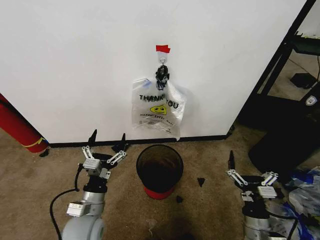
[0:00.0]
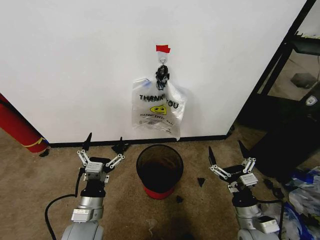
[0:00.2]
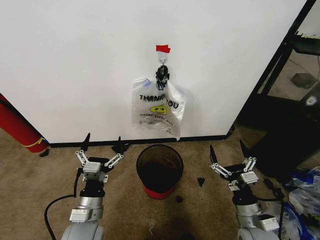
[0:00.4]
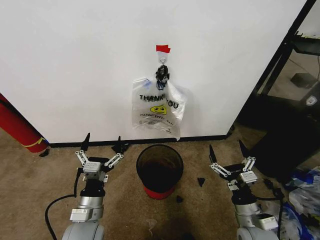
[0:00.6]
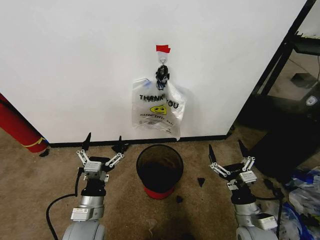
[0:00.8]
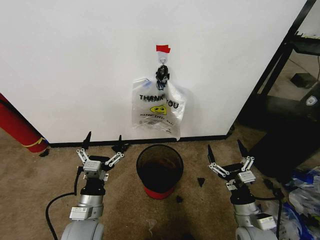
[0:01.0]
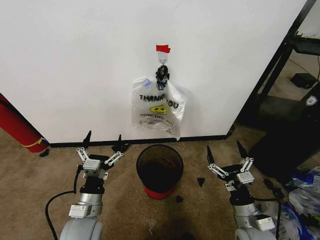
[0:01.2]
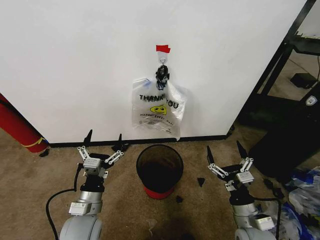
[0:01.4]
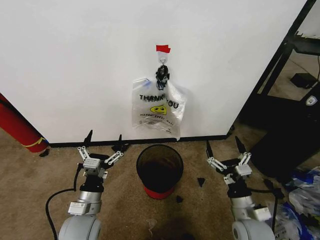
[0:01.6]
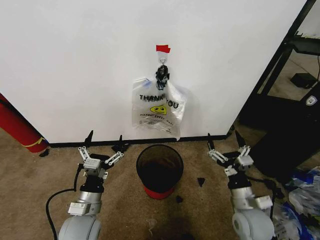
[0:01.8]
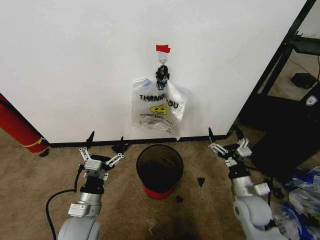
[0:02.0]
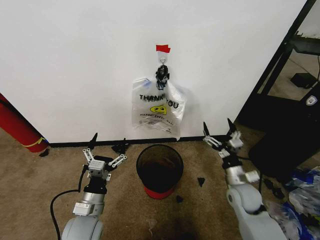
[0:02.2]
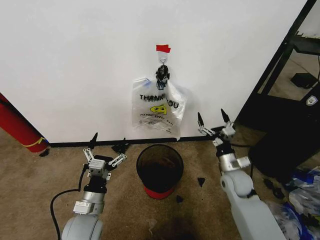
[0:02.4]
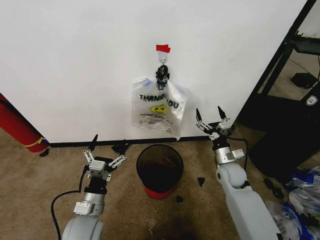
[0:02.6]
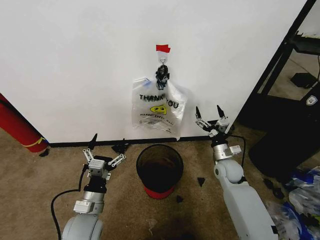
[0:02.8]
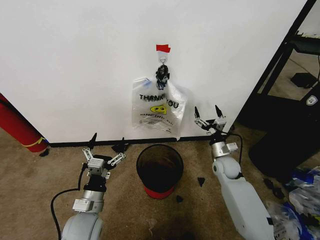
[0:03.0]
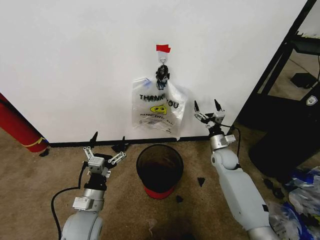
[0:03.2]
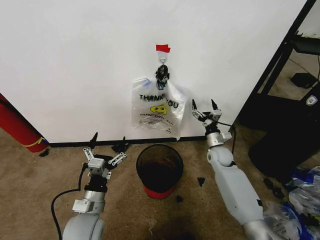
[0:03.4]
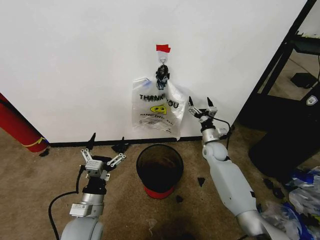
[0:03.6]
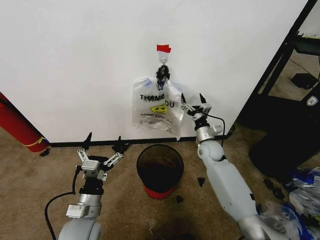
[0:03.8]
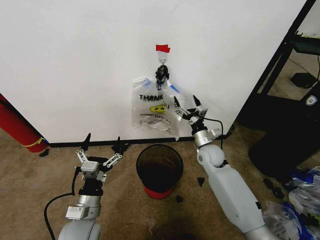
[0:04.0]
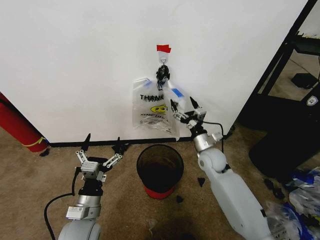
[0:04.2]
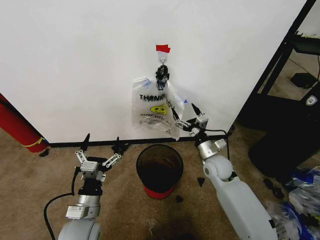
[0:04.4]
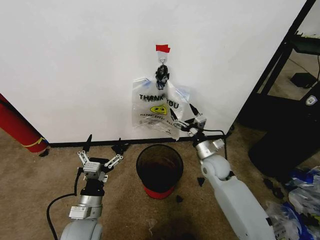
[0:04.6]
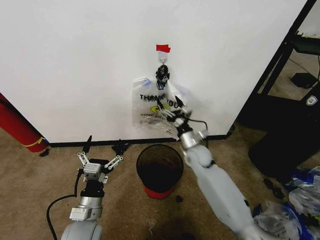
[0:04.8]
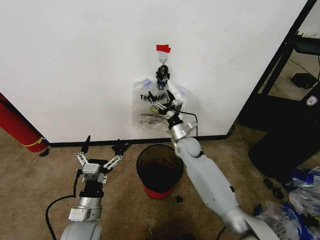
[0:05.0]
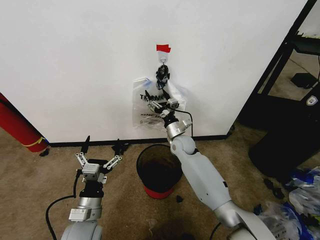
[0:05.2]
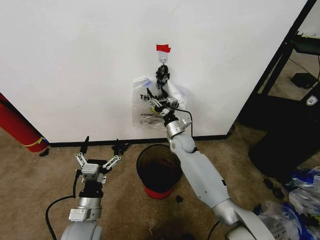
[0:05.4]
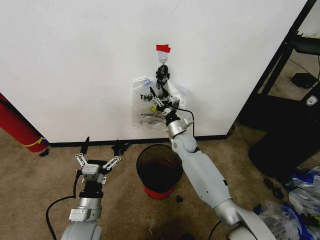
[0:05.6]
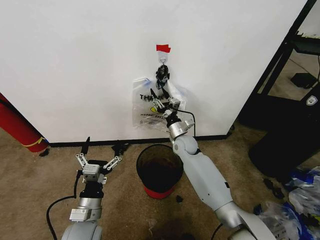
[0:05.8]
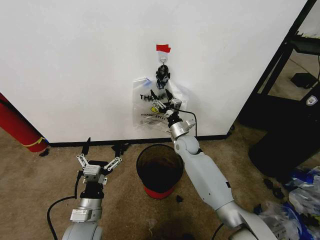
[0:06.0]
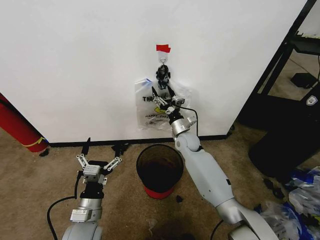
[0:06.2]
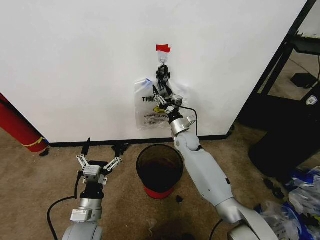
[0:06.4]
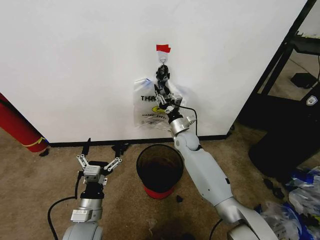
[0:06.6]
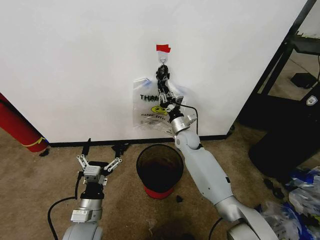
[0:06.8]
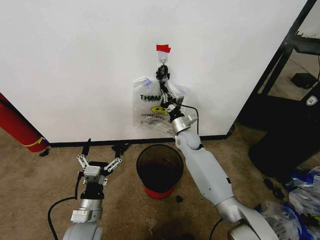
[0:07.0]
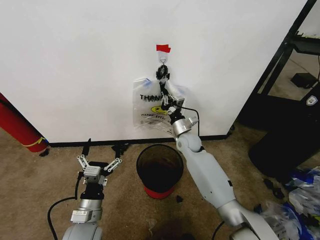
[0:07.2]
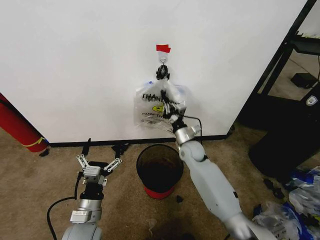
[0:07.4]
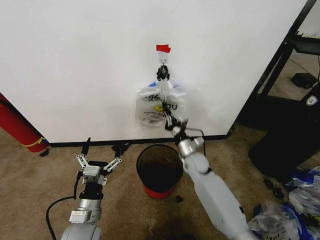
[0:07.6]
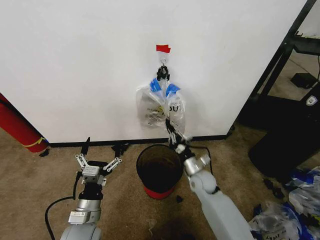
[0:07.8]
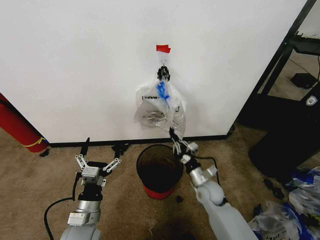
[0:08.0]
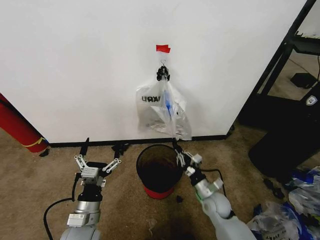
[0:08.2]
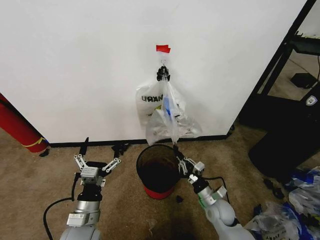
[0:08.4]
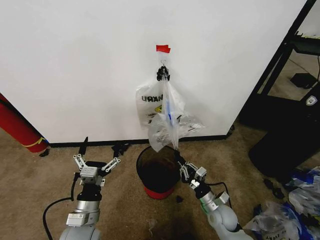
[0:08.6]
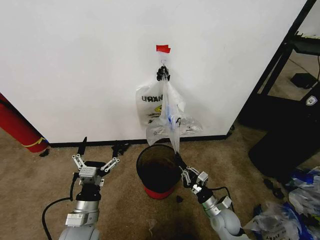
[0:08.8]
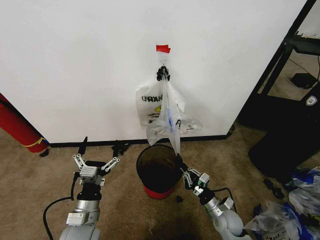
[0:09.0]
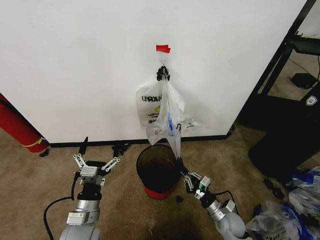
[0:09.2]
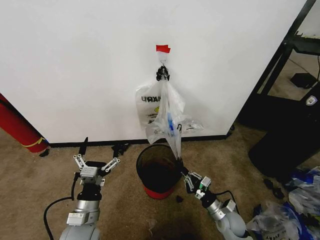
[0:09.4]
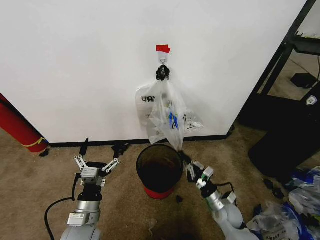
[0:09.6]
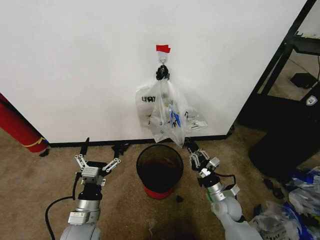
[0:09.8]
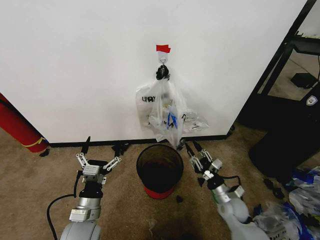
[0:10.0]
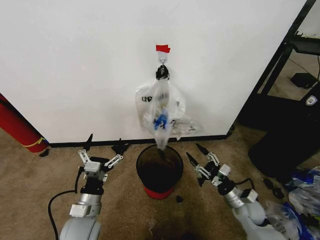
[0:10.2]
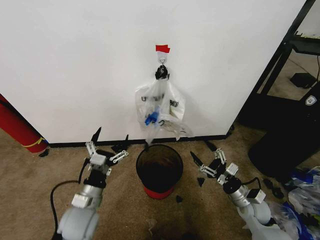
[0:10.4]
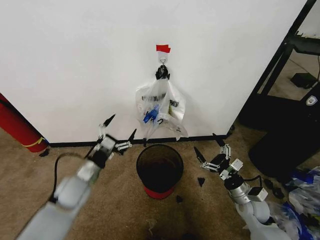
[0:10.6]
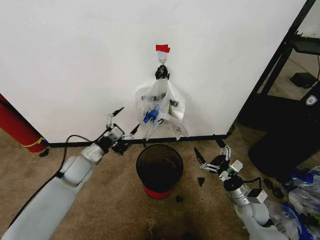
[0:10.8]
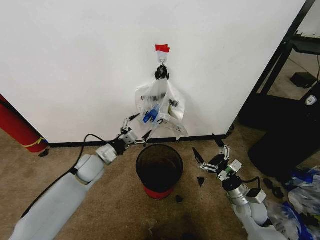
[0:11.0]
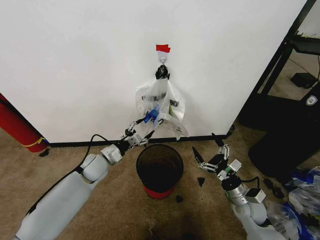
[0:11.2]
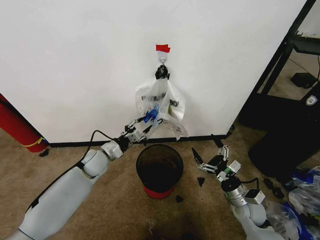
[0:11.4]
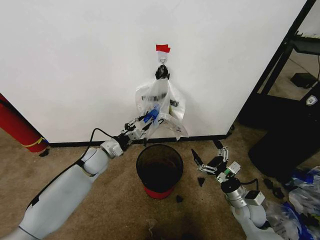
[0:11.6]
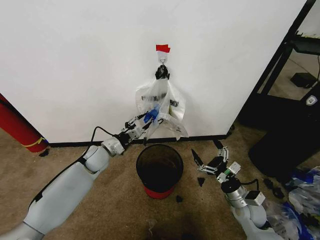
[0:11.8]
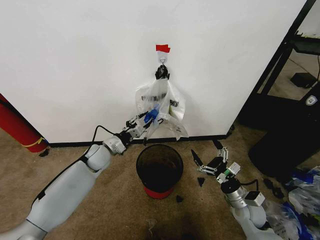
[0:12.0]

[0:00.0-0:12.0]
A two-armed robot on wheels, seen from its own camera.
Task of the whole recording: Pick up the garbage bag from the wall and place it over the trash bin.
0:01.6 to 0:03.0: The right gripper is displaced forward by approximately 25 cm.
0:03.0 to 0:04.4: The right gripper is displaced to the left by approximately 5 cm, and reaches roughly 5 cm forward, then returns.
0:04.4 to 0:06.0: The right gripper goes approximately 15 cm forward and to the left.
0:06.0 to 0:07.6: The right gripper travels backward by approximately 5 cm, and closes its fingers.
0:07.6 to 0:09.0: The right gripper shifts some 25 cm backward, downward and to the right.
0:09.0 to 0:10.4: The left gripper shifts by roughly 5 cm, while the right gripper moves upward and to the right, about 10 cm, and opens its fingers.
0:10.4 to 0:12.0: The left gripper heads forward, covering about 20 cm, and closes its fingers.

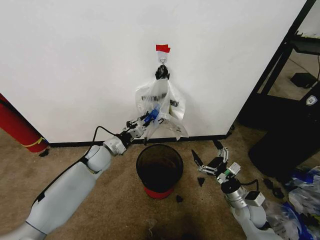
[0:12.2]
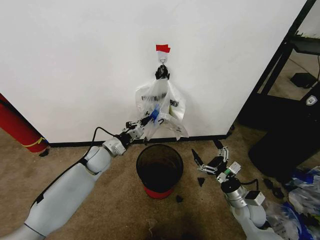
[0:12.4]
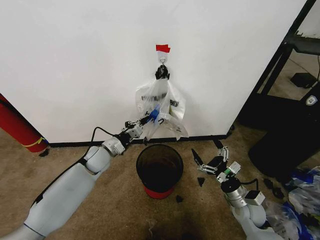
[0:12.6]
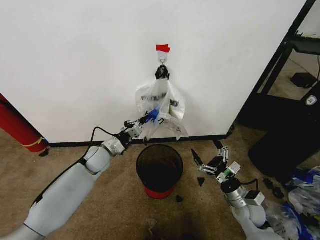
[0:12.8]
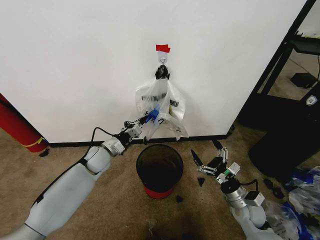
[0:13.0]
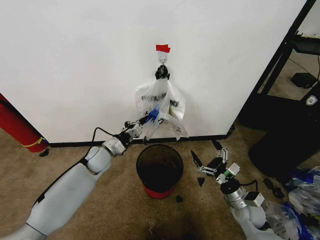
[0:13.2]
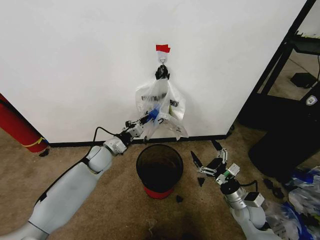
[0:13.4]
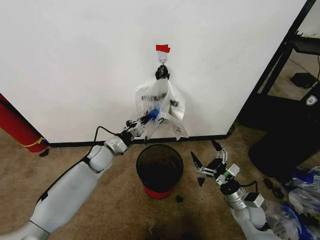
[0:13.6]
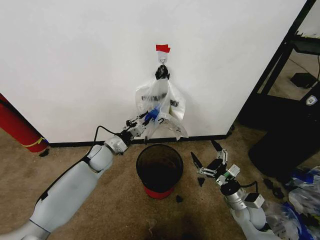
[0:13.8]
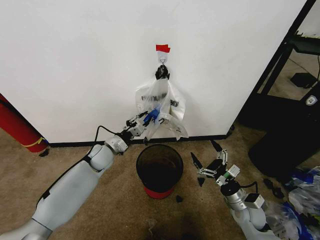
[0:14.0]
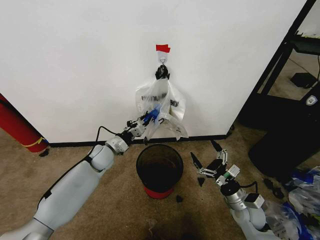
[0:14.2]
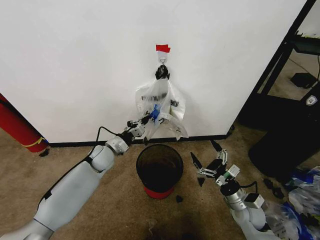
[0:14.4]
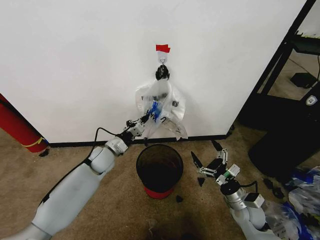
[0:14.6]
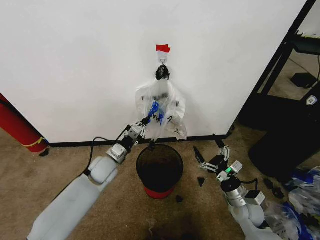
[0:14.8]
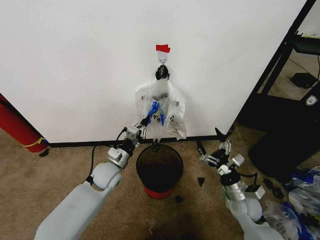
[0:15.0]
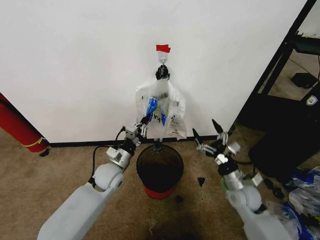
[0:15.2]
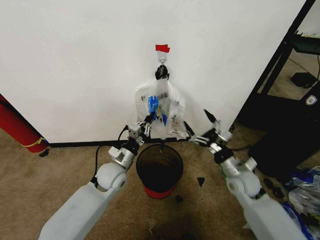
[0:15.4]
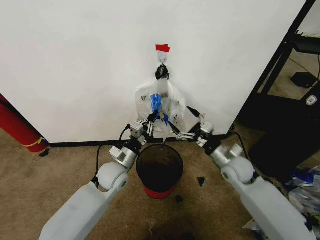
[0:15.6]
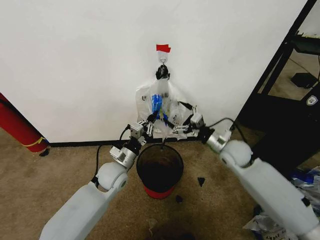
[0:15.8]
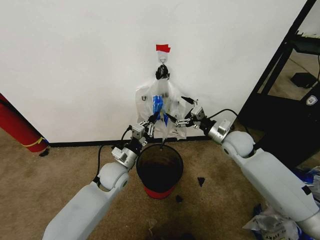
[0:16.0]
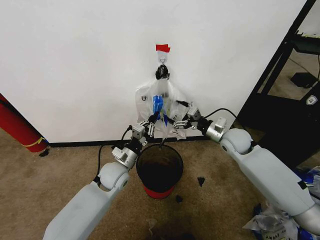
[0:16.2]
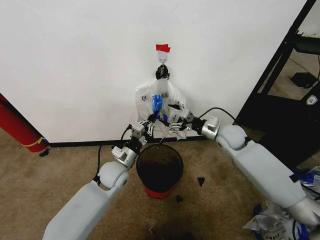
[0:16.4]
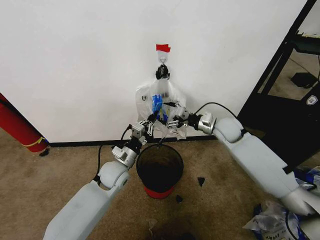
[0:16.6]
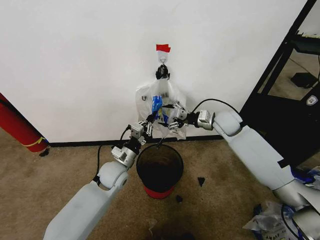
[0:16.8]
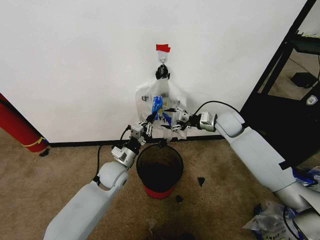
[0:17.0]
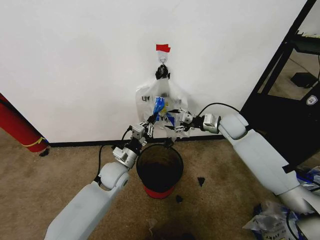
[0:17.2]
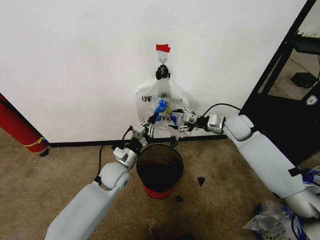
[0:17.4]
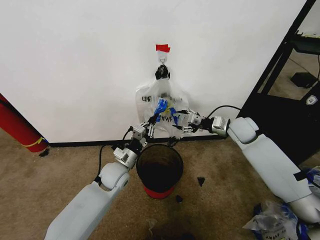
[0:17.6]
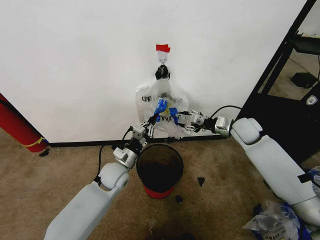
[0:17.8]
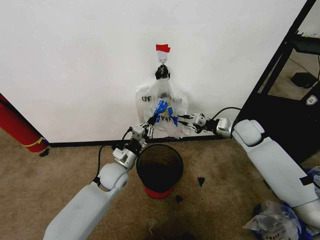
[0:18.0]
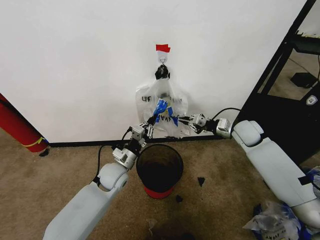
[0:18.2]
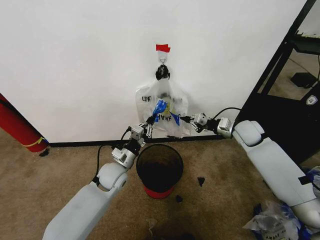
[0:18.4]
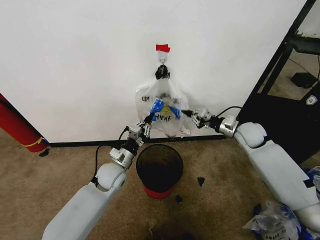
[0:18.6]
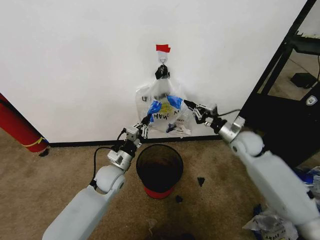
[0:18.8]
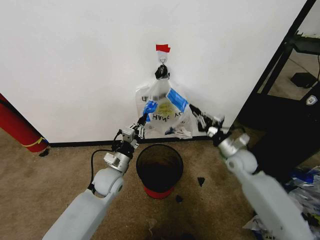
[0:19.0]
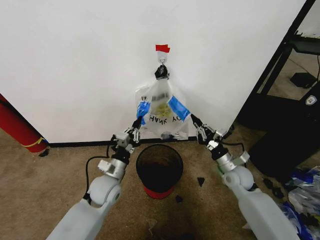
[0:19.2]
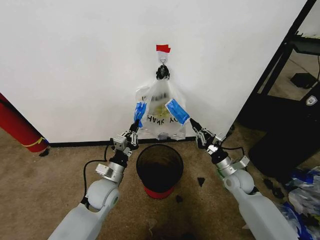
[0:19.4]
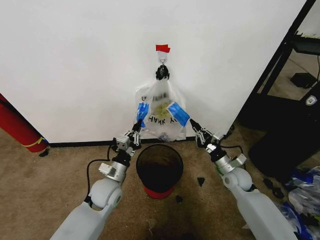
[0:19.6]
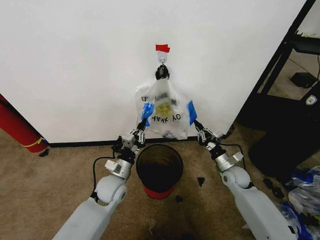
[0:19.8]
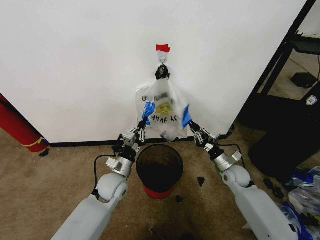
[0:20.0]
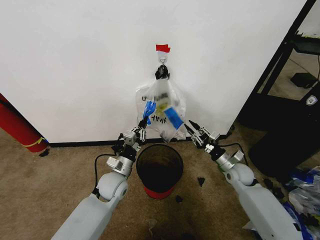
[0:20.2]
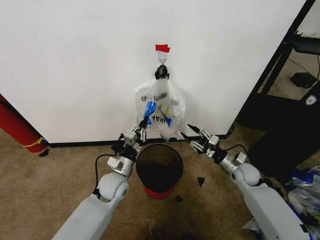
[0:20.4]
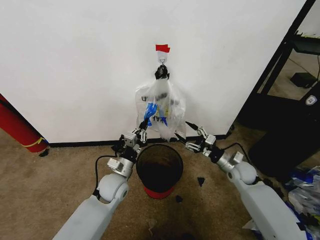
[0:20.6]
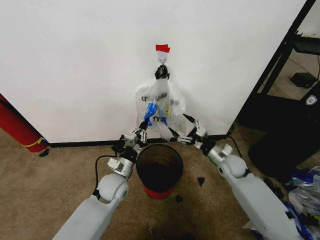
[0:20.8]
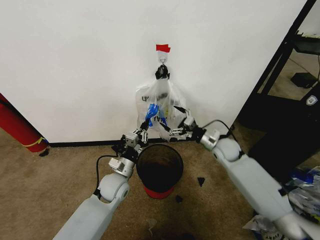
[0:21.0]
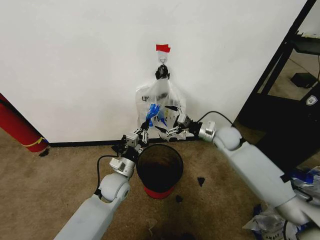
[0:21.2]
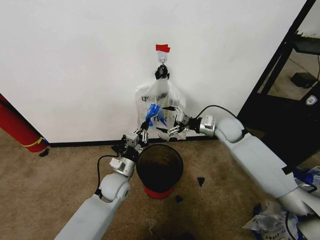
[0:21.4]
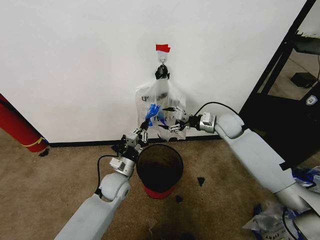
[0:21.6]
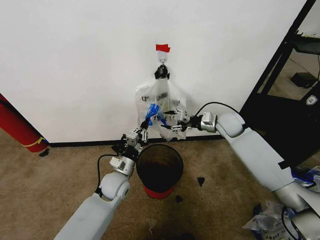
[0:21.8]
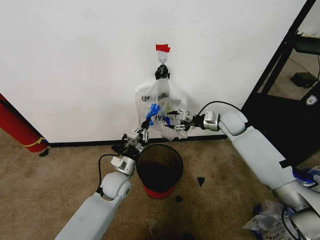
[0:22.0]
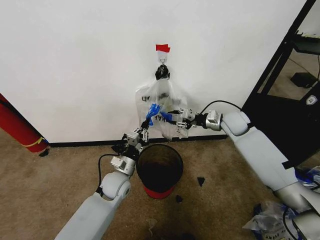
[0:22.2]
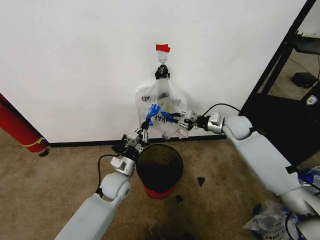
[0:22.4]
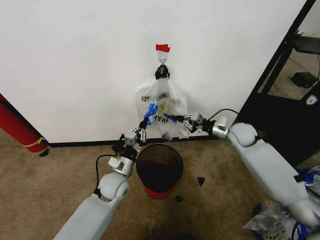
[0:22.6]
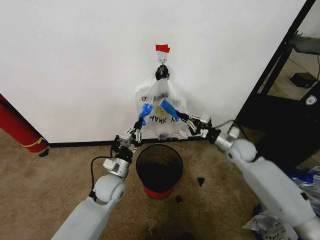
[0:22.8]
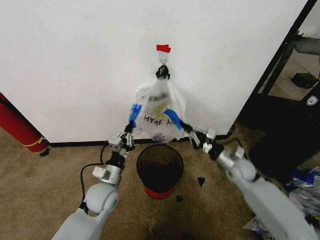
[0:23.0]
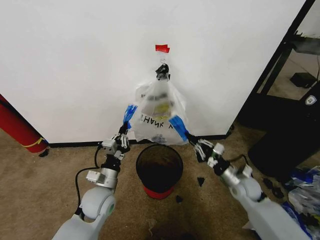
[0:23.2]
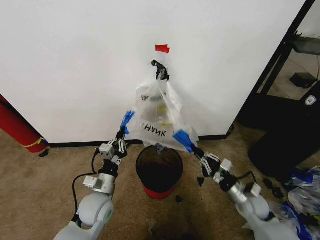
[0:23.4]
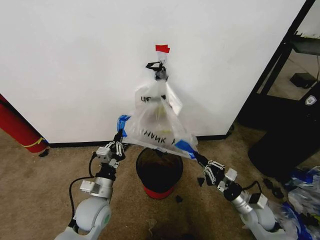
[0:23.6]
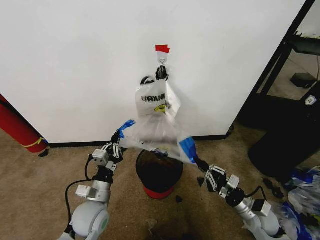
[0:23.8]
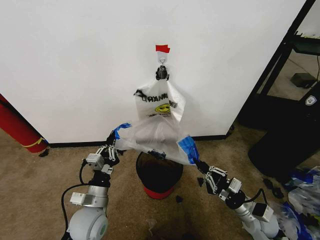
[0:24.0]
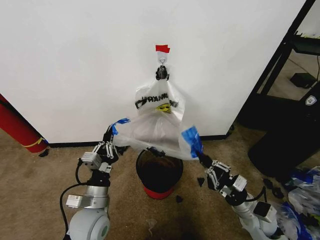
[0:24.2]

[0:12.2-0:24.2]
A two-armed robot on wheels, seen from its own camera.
Task of the whole recording: Pick up the garbage bag from the wall and place it over the trash bin.
0:12.2 to 0:13.8: Both grippers stay about where they are.
0:13.8 to 0:15.2: The right gripper moves upward, some 5 cm. Meanwhile the left gripper is displaced backward and to the right by roughly 10 cm.
0:15.2 to 0:16.6: The right gripper heads forward and upward, covering approximately 25 cm.
0:16.6 to 0:18.2: The right gripper shifts about 10 cm to the right, and closes up.
0:18.2 to 0:19.8: The right gripper shifts about 20 cm downward and backward.
0:19.8 to 0:21.2: The right gripper moves upward and forward, about 15 cm, and opens.
0:21.2 to 0:22.6: The right gripper is displaced to the right by some 5 cm, and closes its fingers.
0:22.6 to 0:24.2: The left gripper shifts approximately 15 cm backward; the right gripper goes roughly 30 cm backward and downward.
